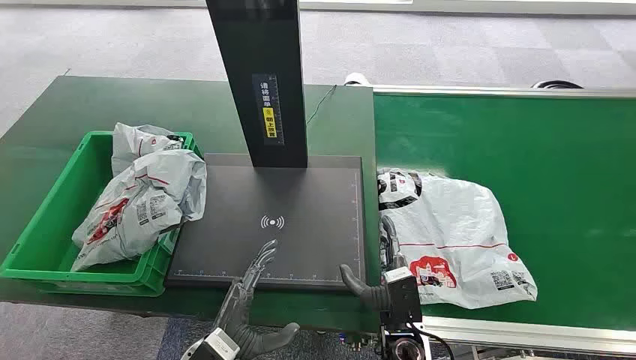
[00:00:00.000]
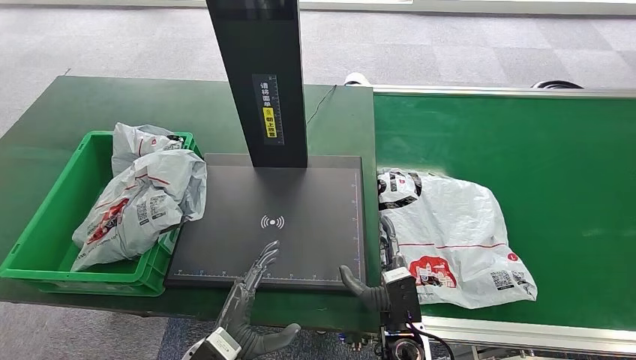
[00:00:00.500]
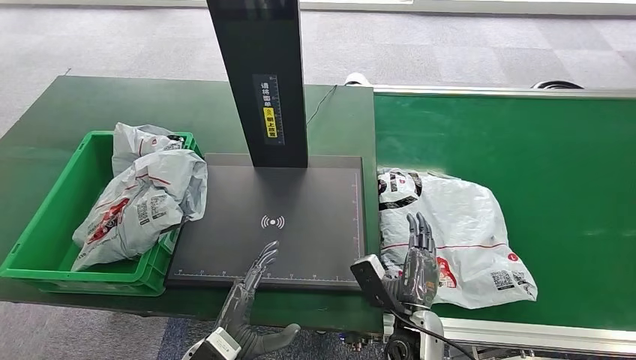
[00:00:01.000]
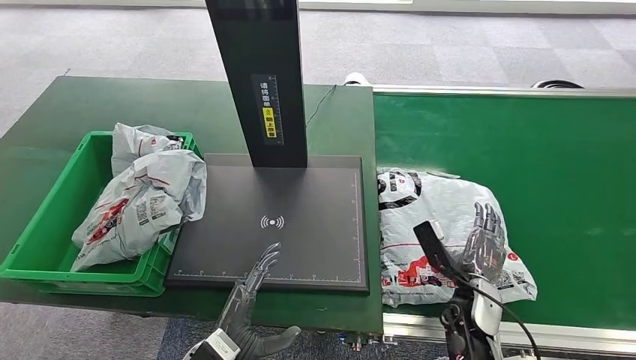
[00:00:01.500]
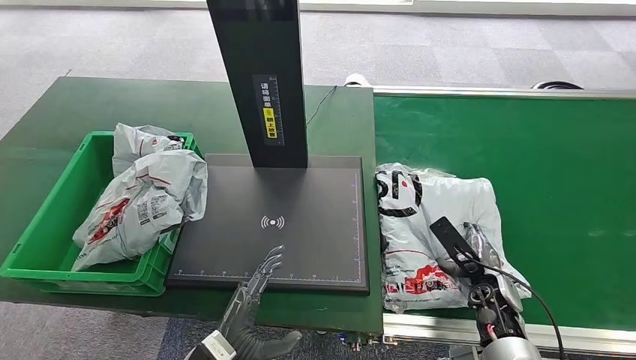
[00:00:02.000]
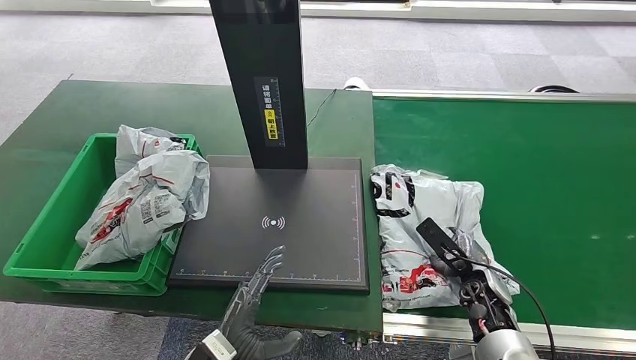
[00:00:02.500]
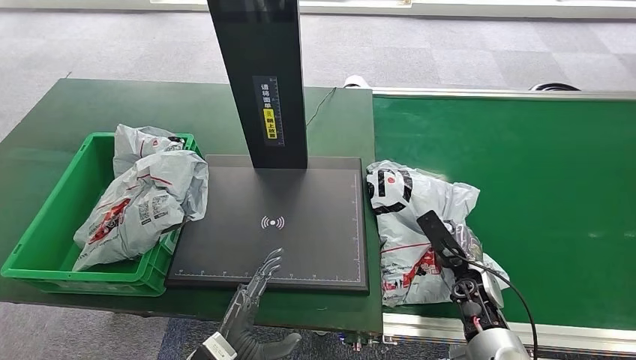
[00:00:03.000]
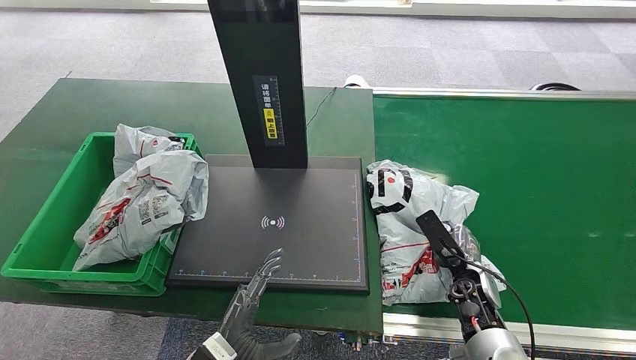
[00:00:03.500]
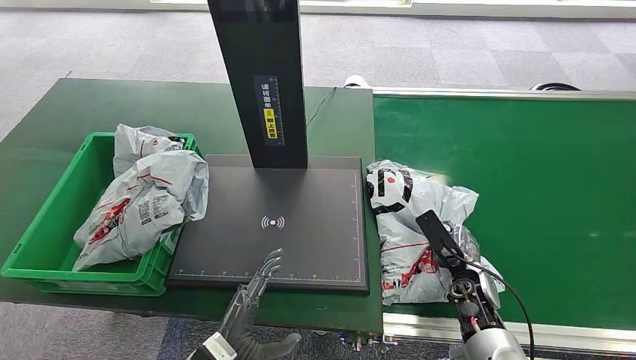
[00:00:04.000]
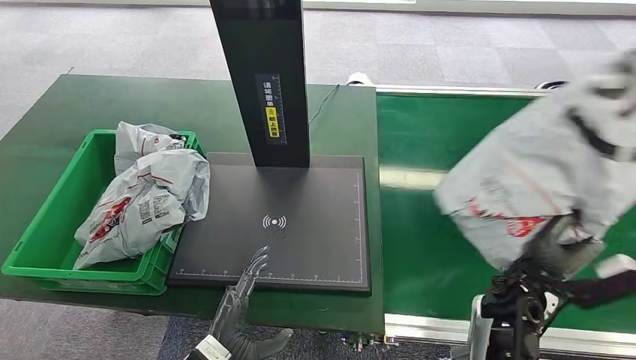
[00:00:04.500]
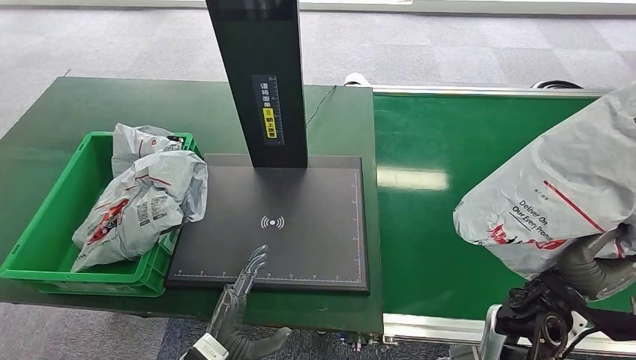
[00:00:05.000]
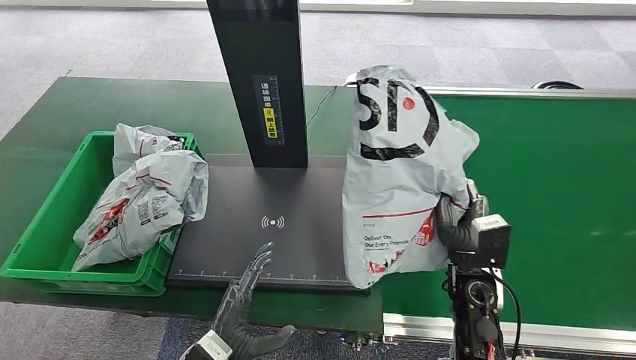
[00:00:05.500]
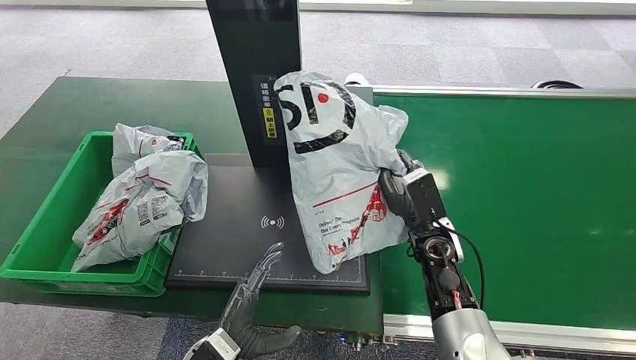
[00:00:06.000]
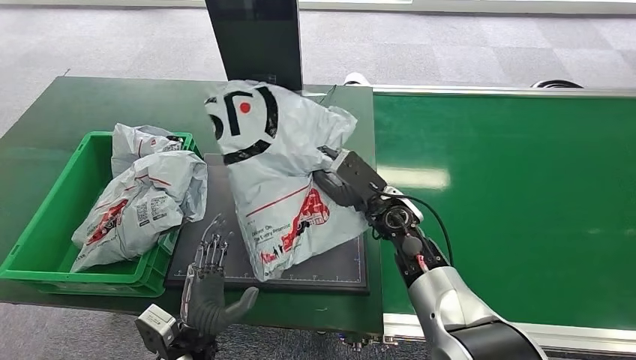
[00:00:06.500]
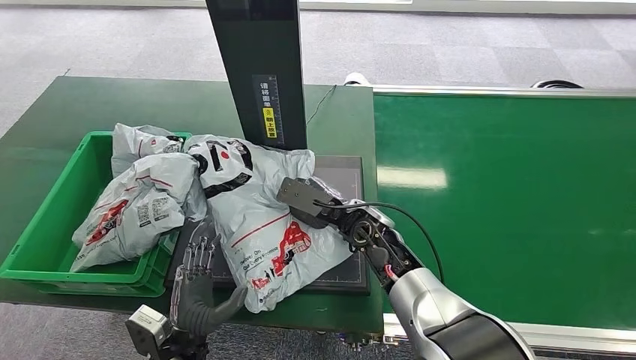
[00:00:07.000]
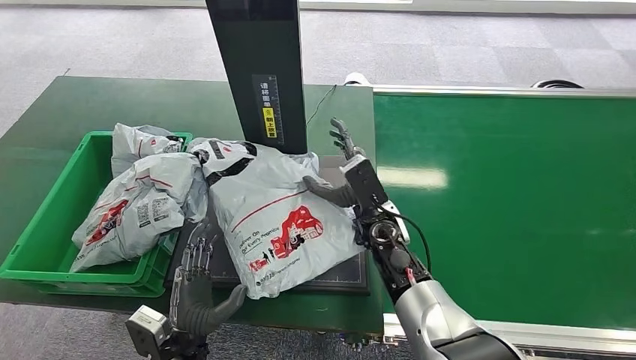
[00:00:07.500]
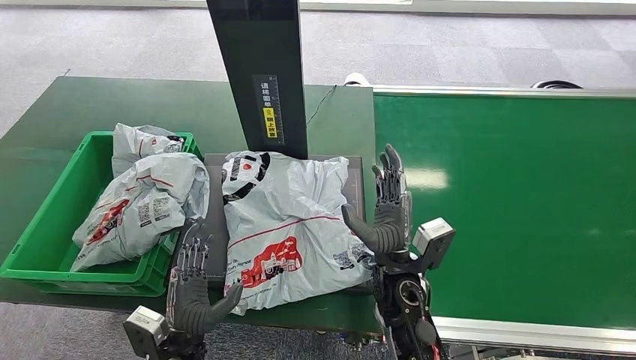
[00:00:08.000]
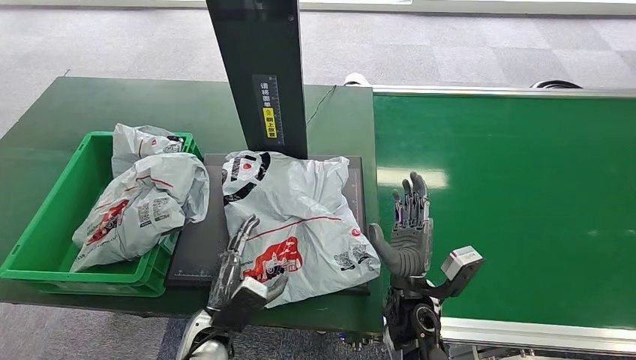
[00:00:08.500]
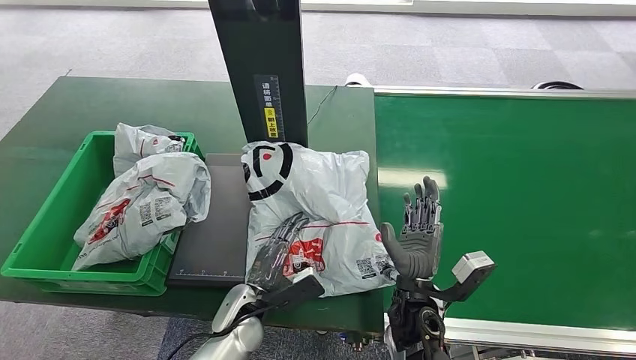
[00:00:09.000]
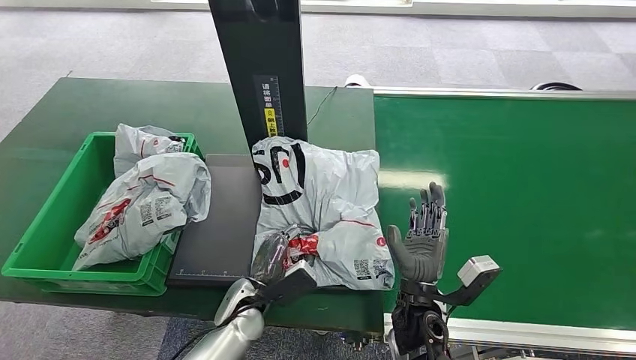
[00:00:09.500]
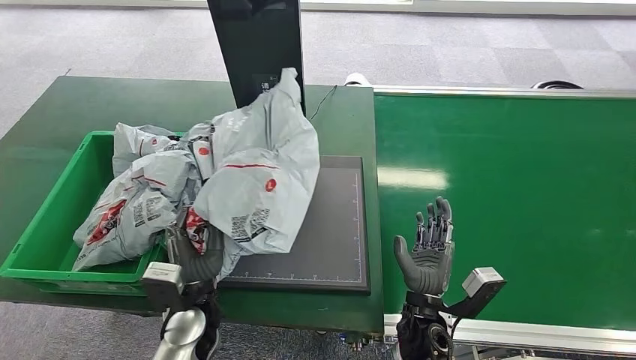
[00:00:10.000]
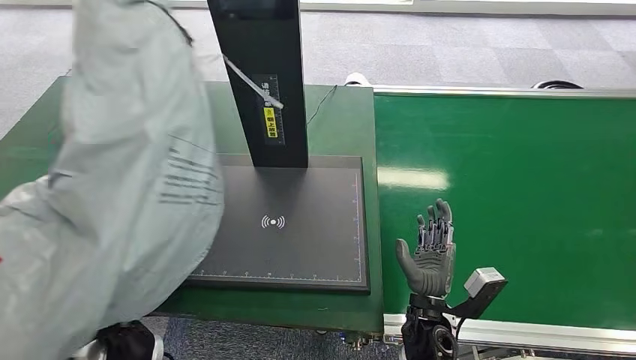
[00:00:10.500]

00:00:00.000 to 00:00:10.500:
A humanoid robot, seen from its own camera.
Step, 00:00:00.000 to 00:00:05.000: Pick up the package from the conveyor belt.
Step, 00:00:05.500 to 00:00:08.000: Place the package onto the inbound machine.
Step, 00:00:08.500 to 00:00:10.500: Pick up the package from the inbound machine.
00:00:02.000 to 00:00:04.000: The hands stay close to where they were, moving slightly.

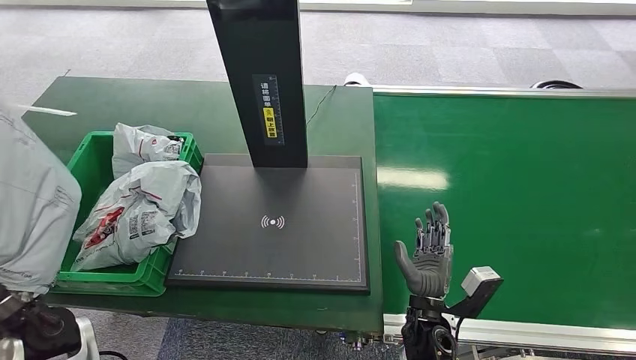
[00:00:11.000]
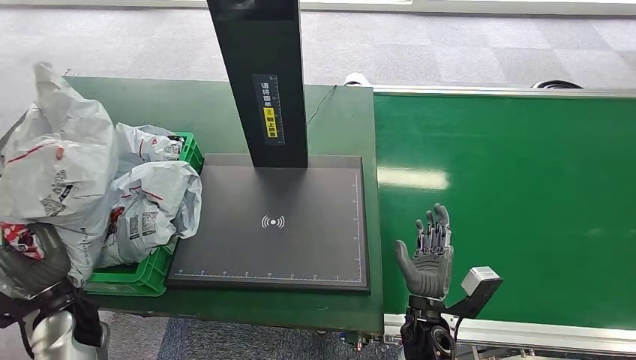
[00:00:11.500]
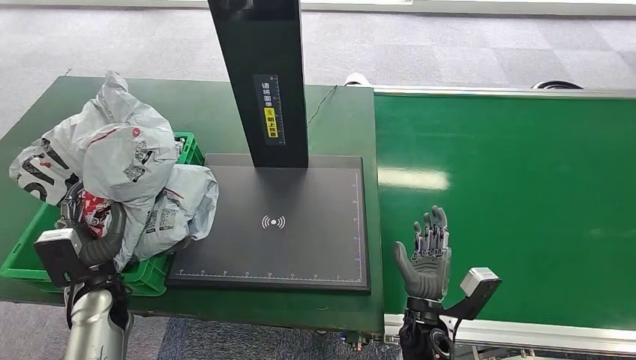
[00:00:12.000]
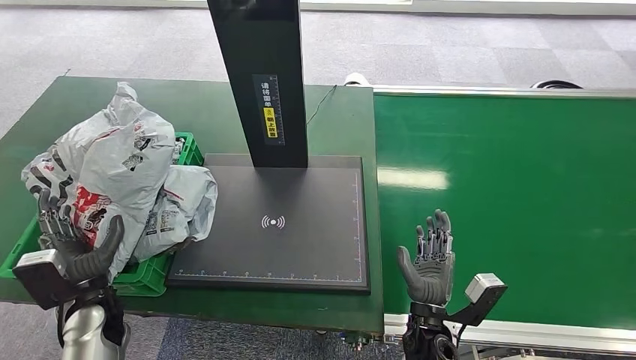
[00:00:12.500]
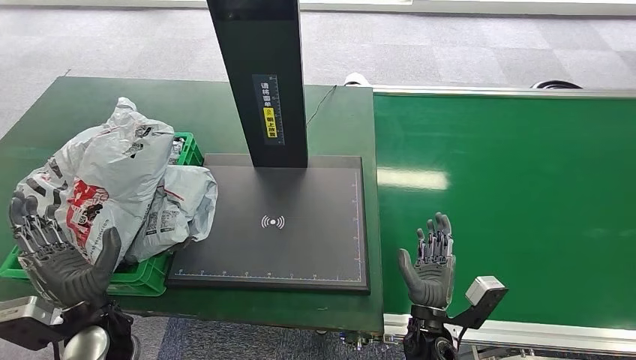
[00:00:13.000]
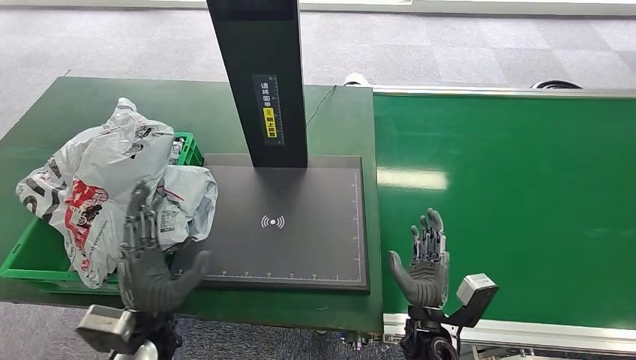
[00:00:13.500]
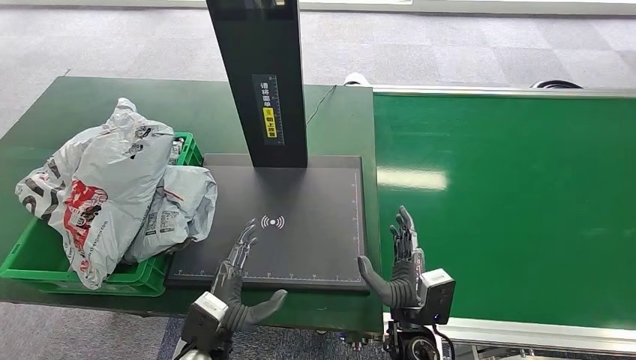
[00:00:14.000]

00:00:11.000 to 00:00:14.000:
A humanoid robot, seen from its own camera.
Step, 00:00:11.000 to 00:00:14.000: Place the package into the parcel locker.
00:00:11.000 to 00:00:12.500: The left hand travels downward by some 10 cm.
00:00:12.500 to 00:00:14.000: The left hand moves to the right, about 20 cm.
